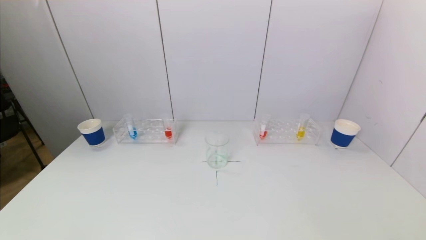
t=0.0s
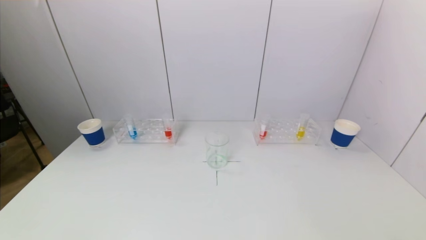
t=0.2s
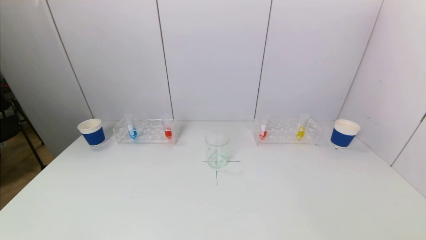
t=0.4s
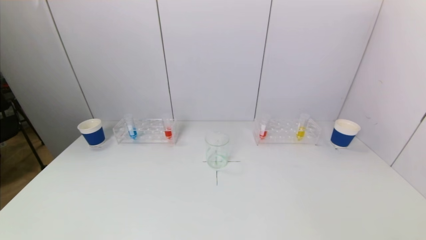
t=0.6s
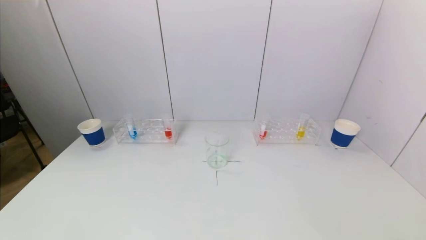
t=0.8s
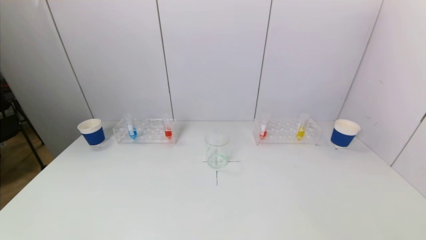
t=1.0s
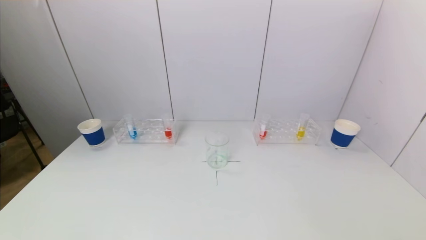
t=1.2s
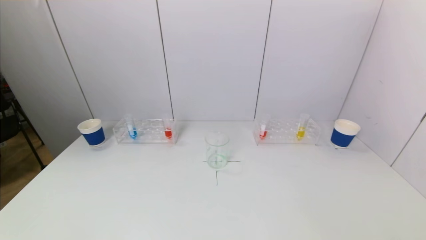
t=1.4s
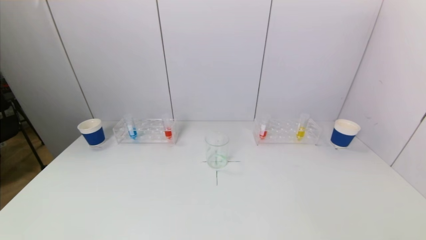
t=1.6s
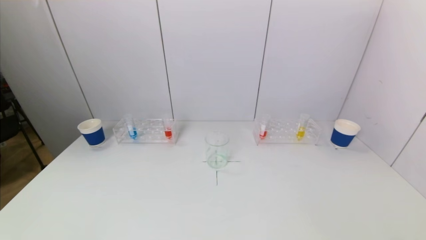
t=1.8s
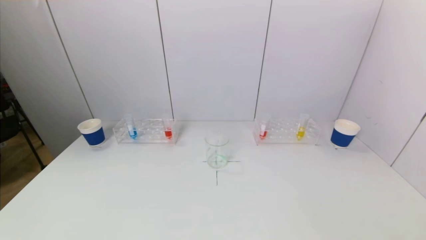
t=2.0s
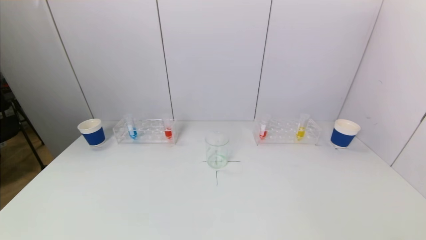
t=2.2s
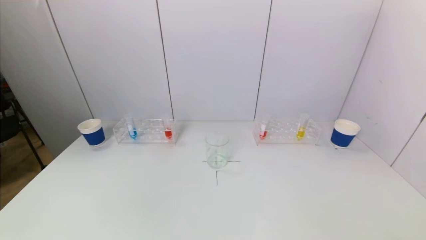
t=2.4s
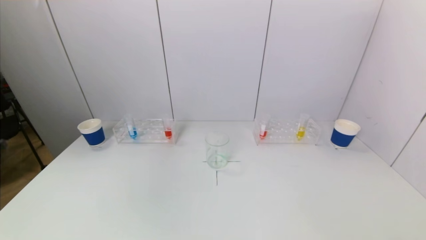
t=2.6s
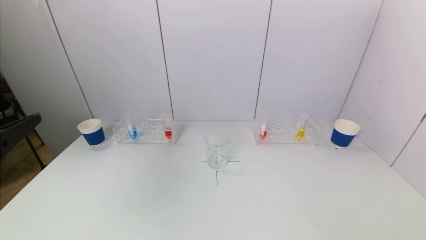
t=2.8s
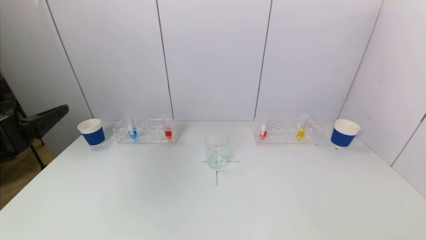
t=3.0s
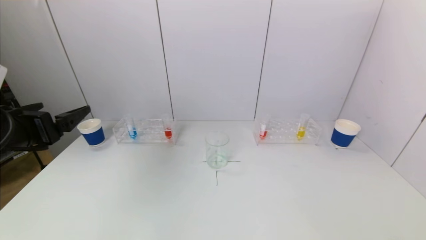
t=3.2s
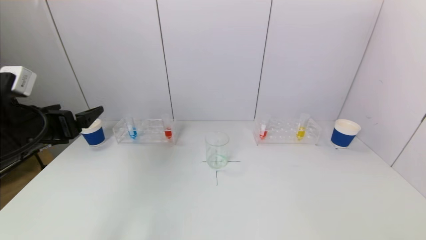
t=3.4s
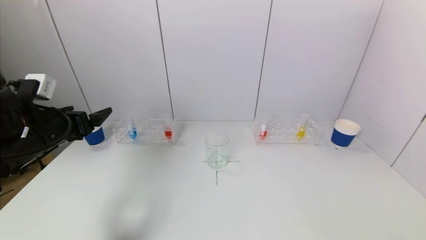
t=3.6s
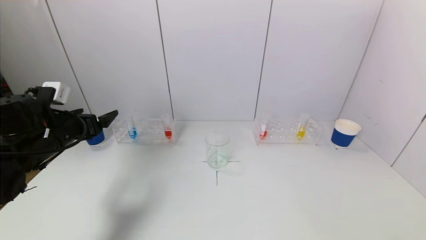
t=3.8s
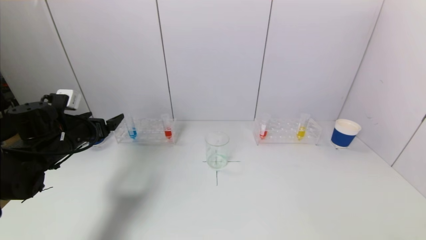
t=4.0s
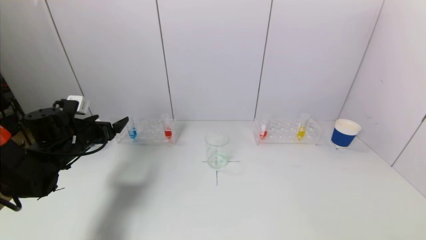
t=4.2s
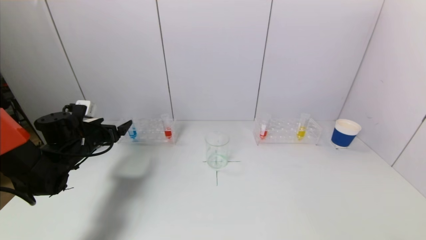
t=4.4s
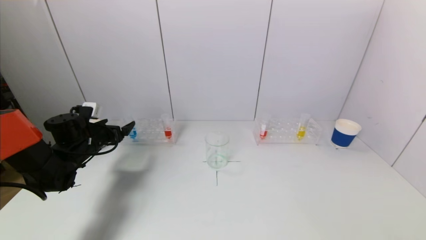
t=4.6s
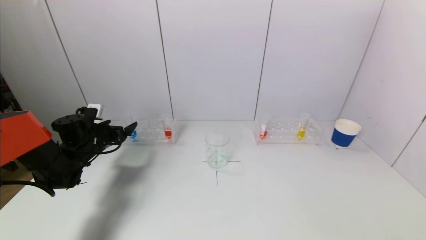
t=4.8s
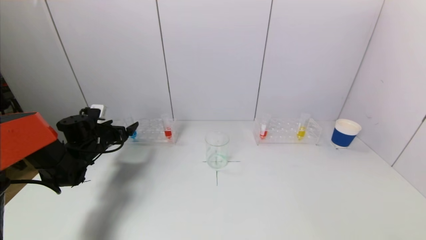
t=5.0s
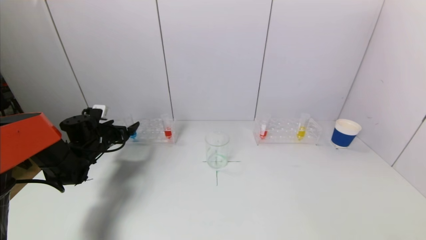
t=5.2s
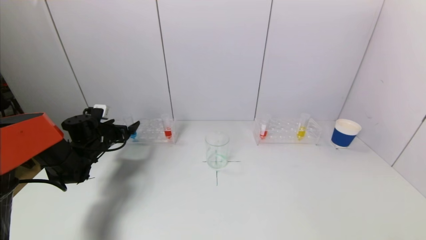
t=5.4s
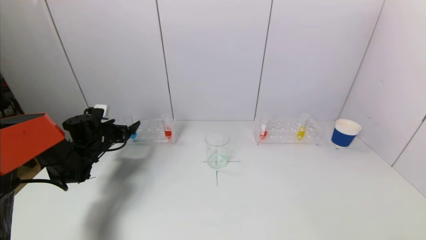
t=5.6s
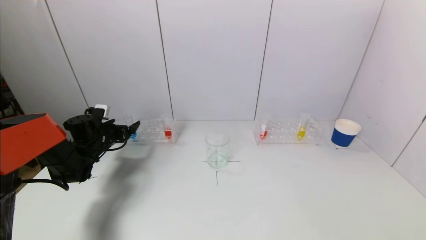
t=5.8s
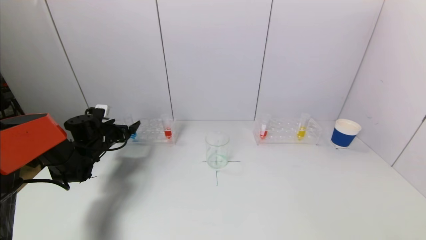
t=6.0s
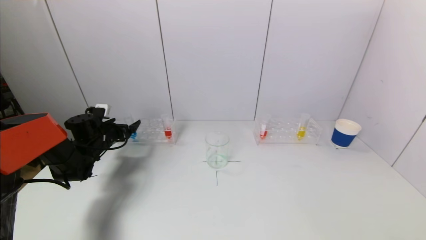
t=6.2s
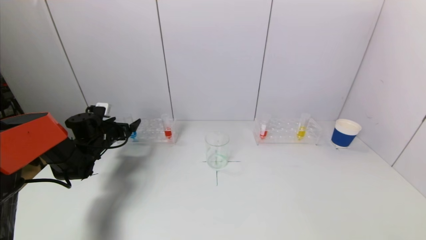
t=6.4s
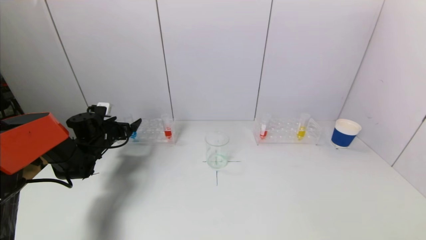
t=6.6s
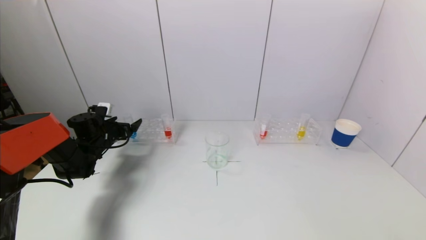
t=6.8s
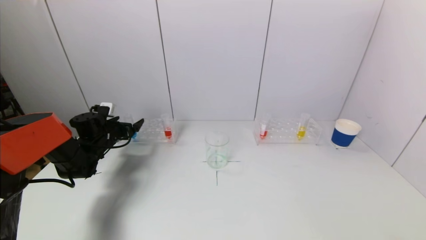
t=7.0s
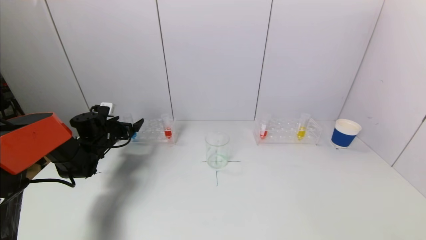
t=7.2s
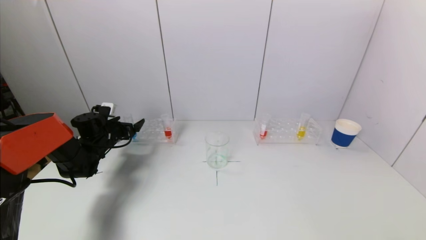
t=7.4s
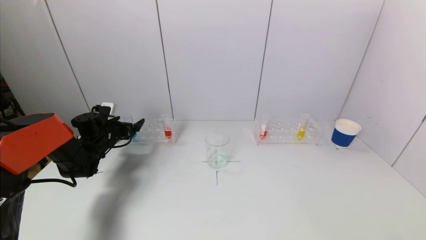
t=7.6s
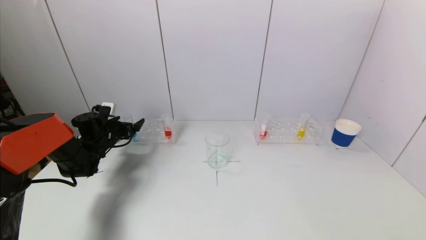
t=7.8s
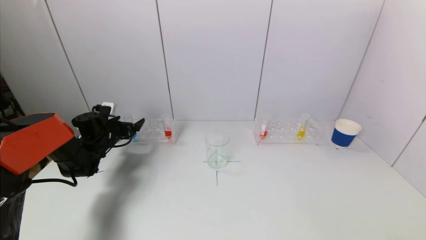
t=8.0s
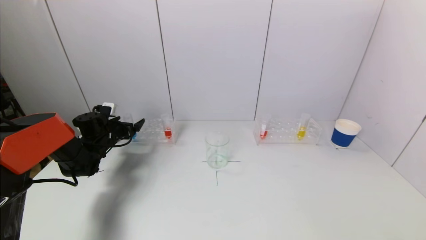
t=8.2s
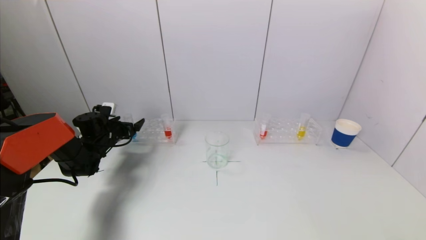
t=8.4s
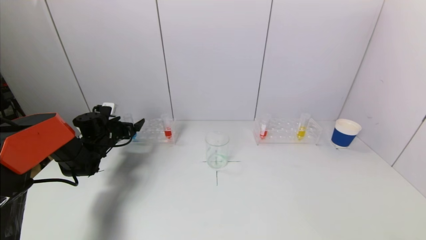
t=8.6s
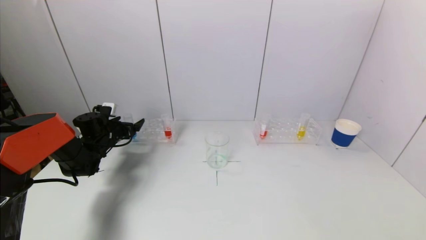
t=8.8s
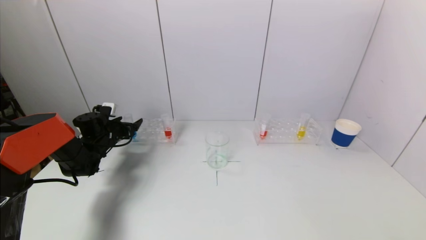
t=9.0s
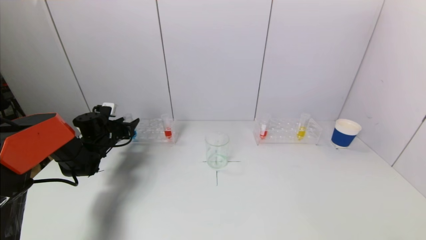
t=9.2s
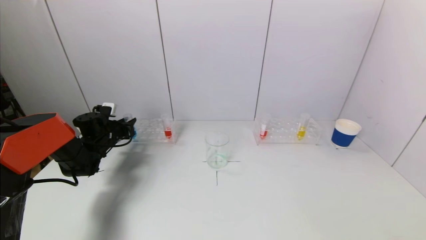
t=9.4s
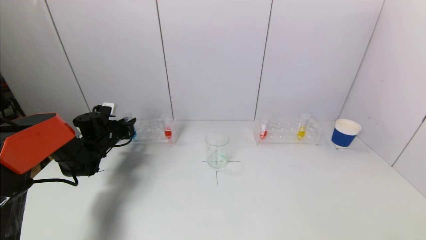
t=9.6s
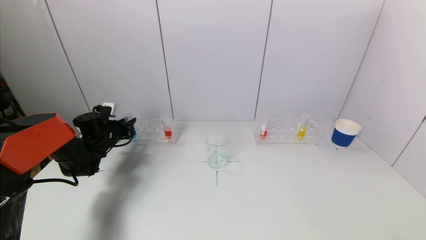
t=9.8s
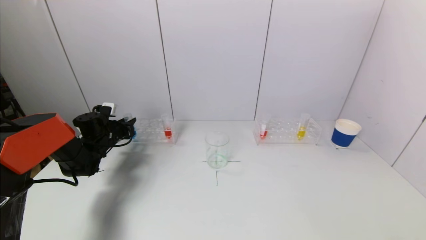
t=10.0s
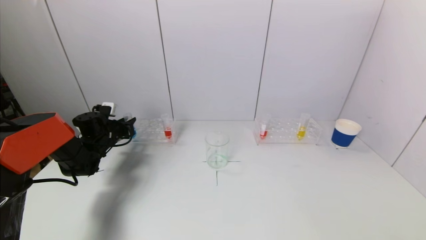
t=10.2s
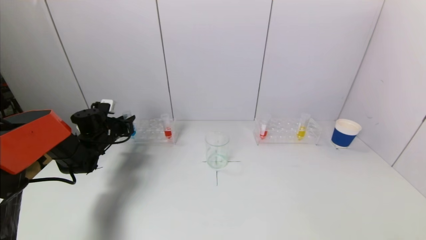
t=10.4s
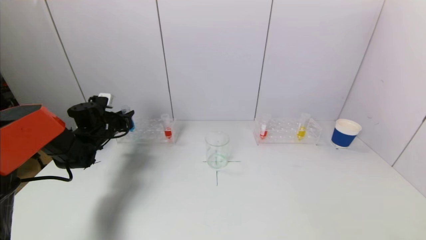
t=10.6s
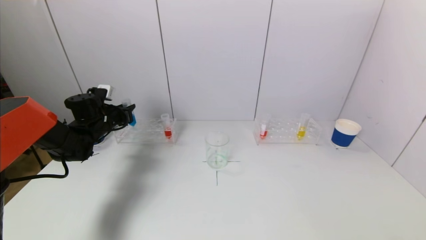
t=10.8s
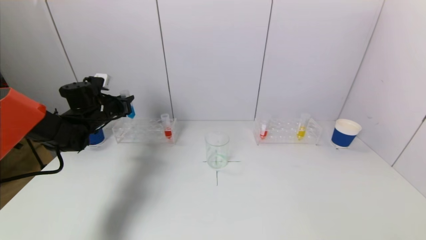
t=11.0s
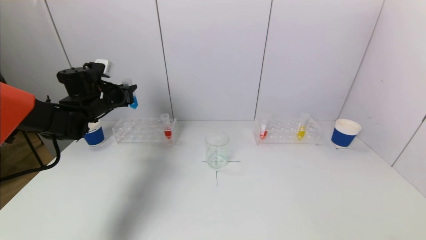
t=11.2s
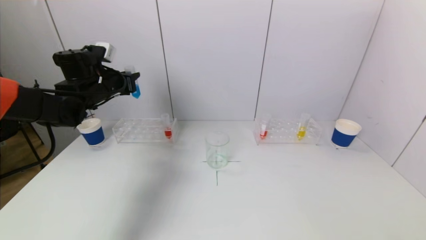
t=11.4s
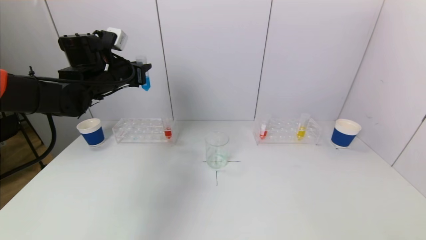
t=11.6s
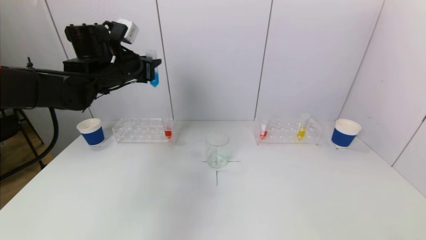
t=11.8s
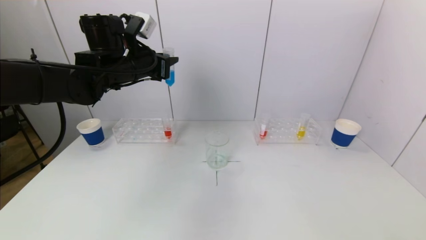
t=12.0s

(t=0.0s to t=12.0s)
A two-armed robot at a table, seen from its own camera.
Task of the whole recording: pick up a test tube with pigment on left test tube rack and a test tube with pigment on right test tube rack by grippers and pour them into the beaker.
Step, t=0.0s - t=9.6s: Grasp the blue reagent with the left gripper.
t=0.0s - t=1.6s: The two grippers keep their place.
t=1.6s - t=3.0s: The left gripper moves upward and forward, some 25 cm.
t=3.0s - t=4.4s: The left gripper goes some 25 cm forward and downward.
t=4.4s - t=6.0s: The left gripper is displaced forward by about 5 cm.
t=6.0s - t=7.6s: There are only small adjustments of the grippers.
t=7.6s - t=9.0s: Both grippers stay about where they are.
t=9.0s - t=10.4s: The left gripper closes.
t=10.4s - t=12.0s: The left gripper goes roughly 25 cm upward and to the right.

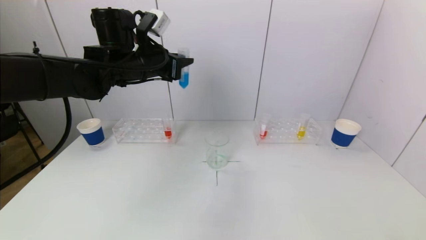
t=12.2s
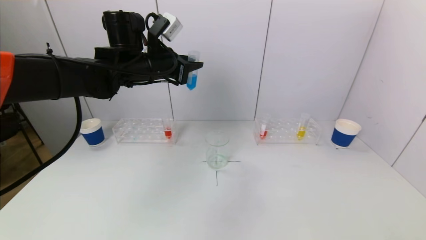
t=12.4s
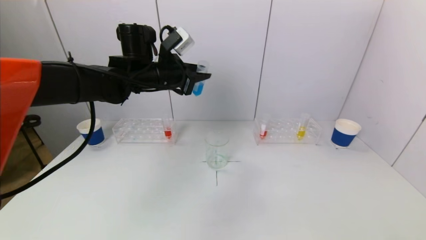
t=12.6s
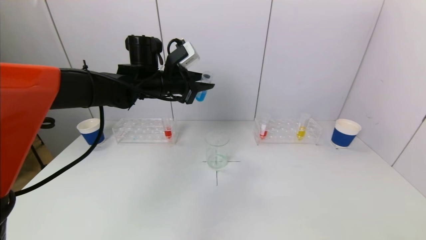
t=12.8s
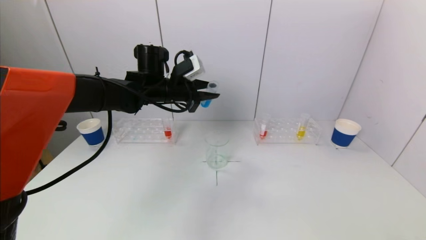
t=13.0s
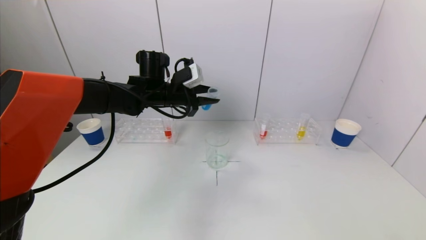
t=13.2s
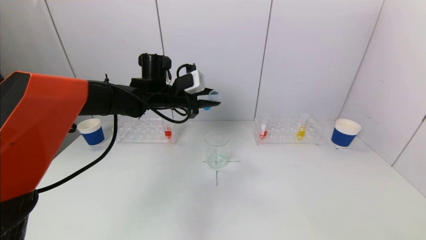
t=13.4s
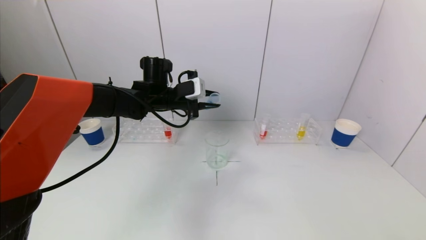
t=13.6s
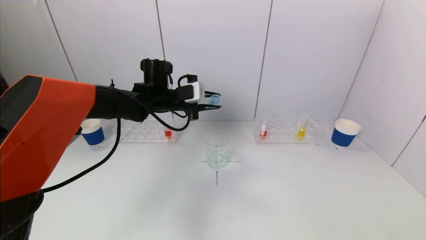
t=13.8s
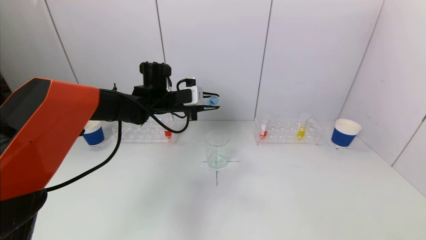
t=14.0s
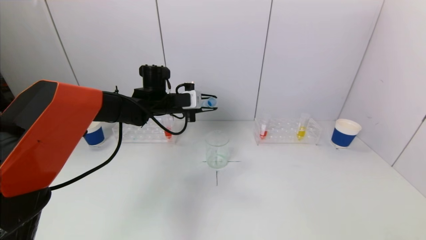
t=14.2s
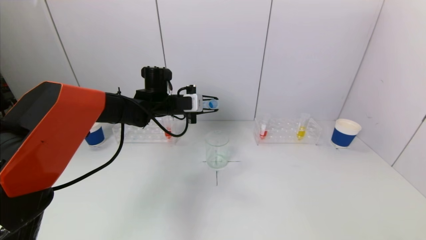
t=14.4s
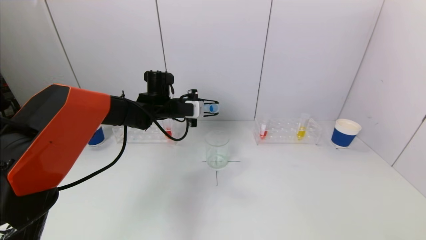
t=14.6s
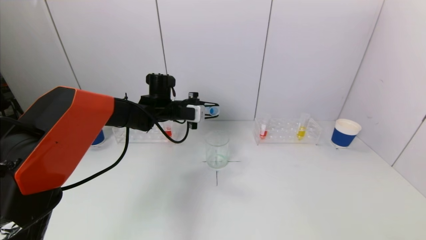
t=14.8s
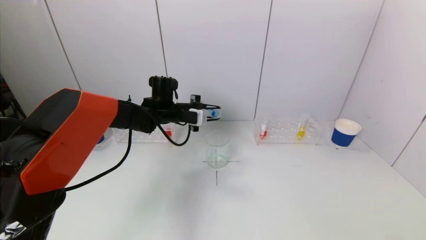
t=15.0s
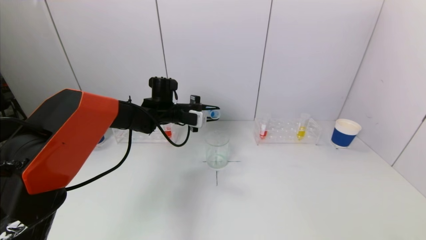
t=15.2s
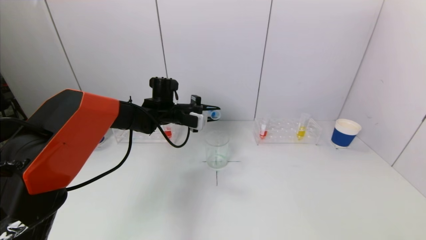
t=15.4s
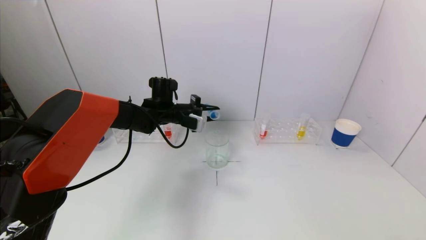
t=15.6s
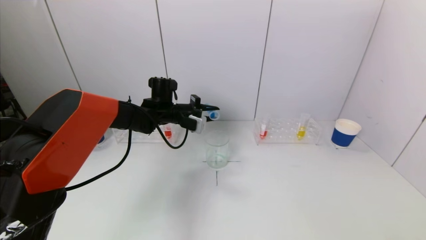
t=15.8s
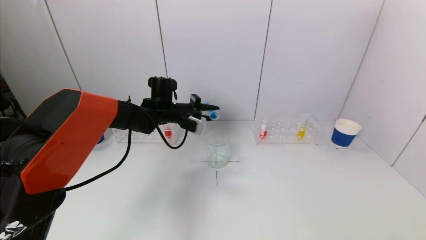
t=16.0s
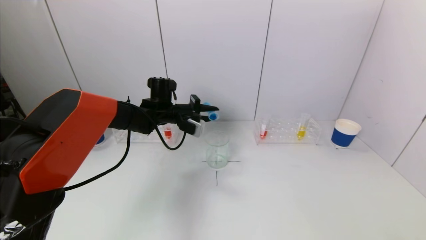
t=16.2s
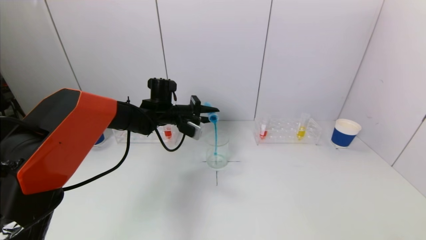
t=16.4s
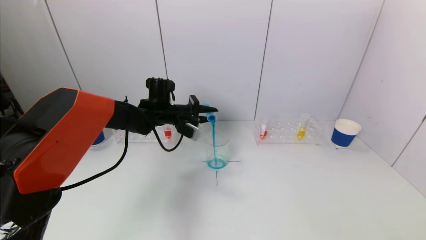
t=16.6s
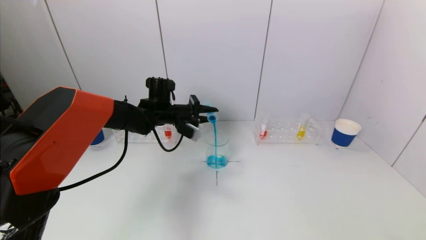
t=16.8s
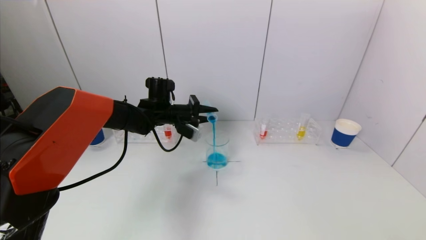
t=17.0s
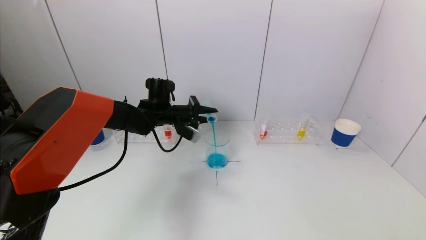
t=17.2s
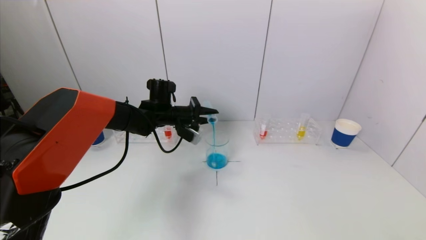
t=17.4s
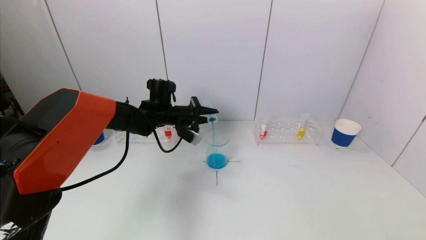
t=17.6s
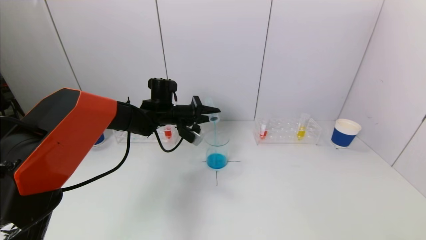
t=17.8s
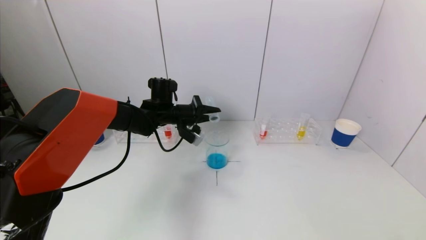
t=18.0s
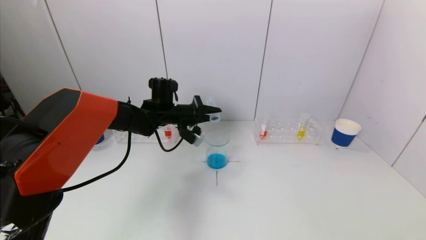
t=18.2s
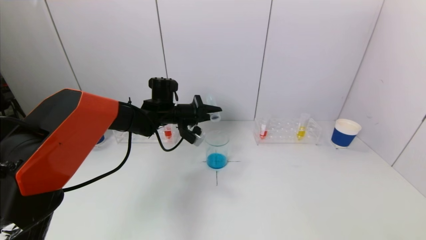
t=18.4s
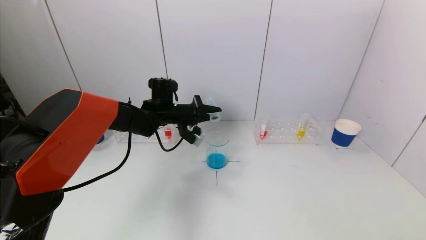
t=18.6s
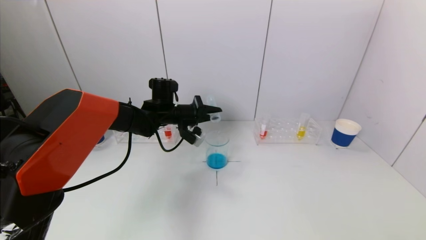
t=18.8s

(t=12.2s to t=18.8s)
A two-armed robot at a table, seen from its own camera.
Task of the whole recording: pick up a test tube with pigment on left test tube rack and a test tube with pigment on right test tube rack by grippers and pour them into the beaker.
t=12.2s - t=13.8s: The left gripper is displaced downward by some 10 cm.
t=13.8s - t=15.4s: The left gripper heads downward, covering roughly 5 cm.
t=15.4s - t=17.2s: The grippers move only a little.
t=17.2s - t=18.8s: There are only small adjustments of the grippers.
